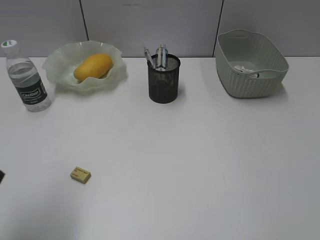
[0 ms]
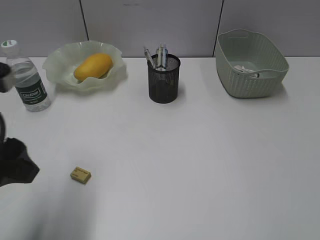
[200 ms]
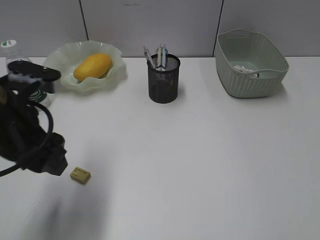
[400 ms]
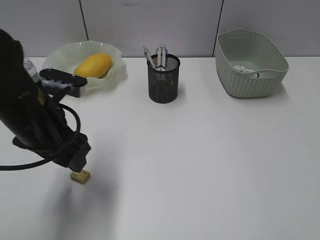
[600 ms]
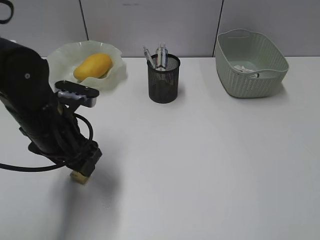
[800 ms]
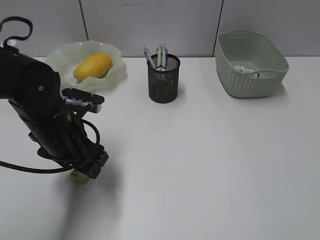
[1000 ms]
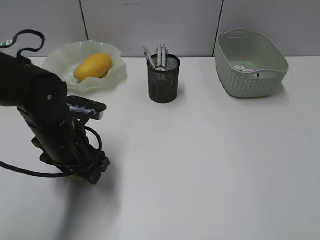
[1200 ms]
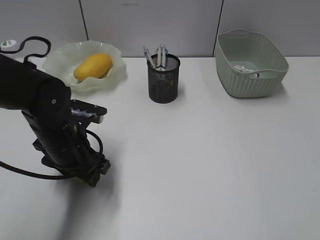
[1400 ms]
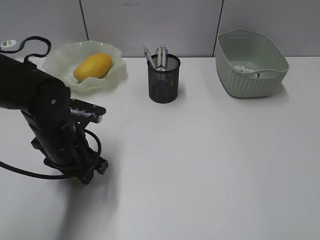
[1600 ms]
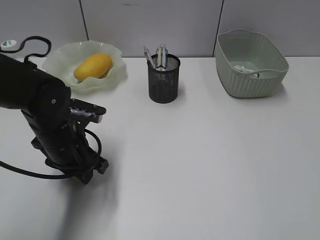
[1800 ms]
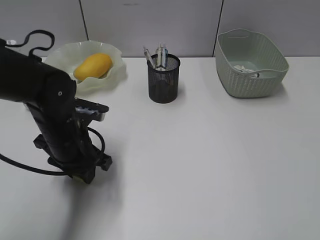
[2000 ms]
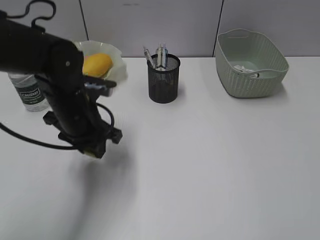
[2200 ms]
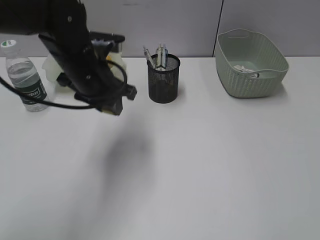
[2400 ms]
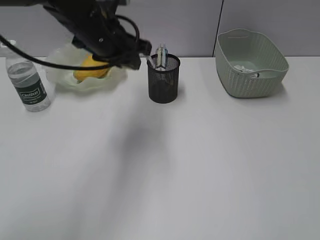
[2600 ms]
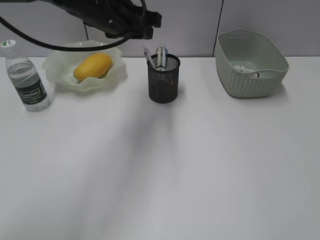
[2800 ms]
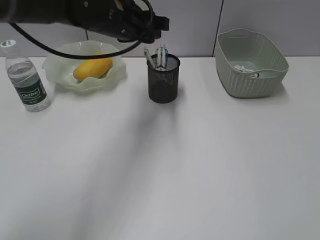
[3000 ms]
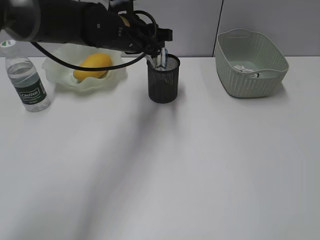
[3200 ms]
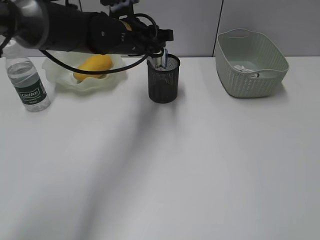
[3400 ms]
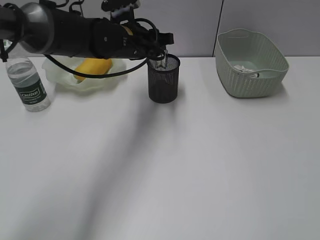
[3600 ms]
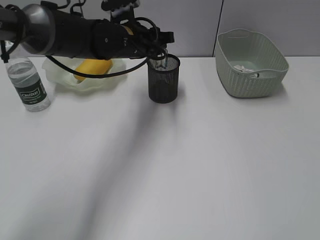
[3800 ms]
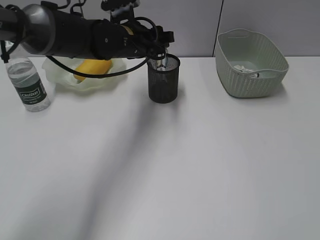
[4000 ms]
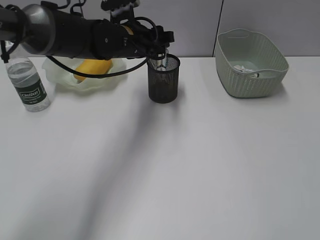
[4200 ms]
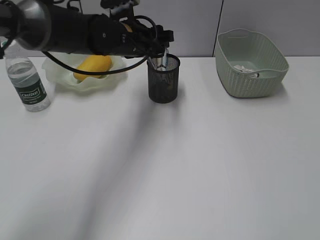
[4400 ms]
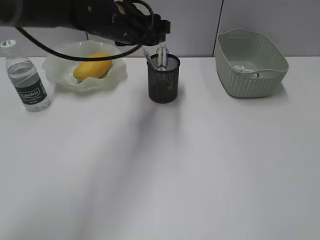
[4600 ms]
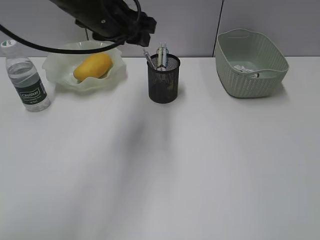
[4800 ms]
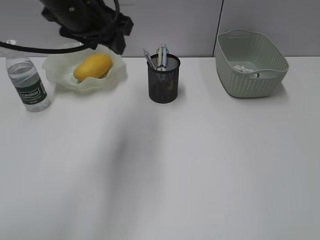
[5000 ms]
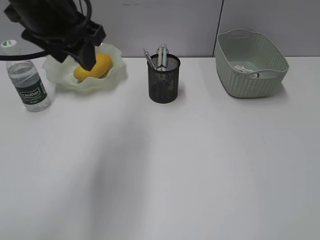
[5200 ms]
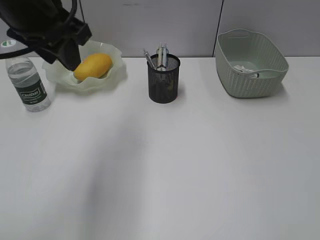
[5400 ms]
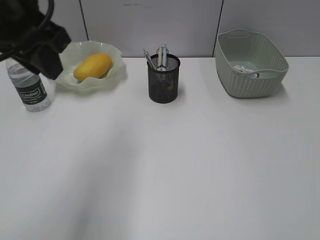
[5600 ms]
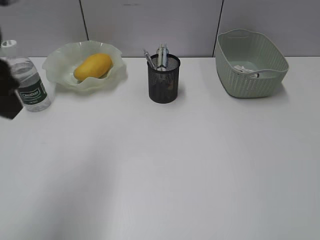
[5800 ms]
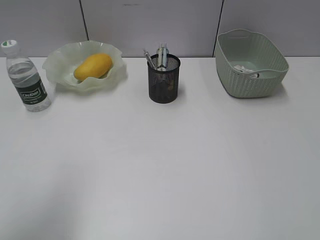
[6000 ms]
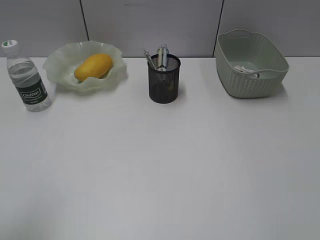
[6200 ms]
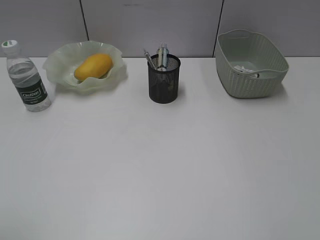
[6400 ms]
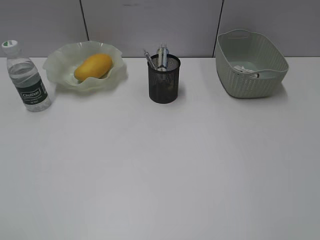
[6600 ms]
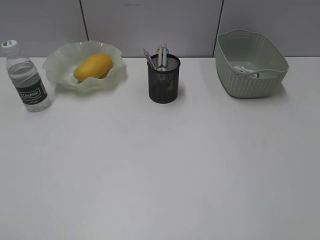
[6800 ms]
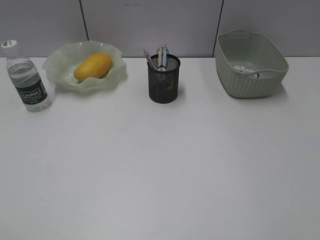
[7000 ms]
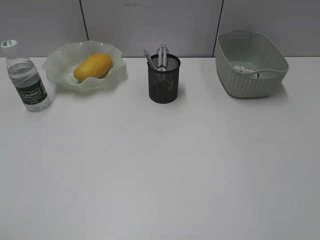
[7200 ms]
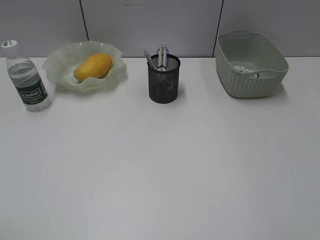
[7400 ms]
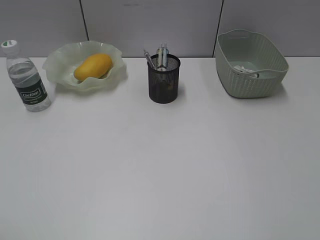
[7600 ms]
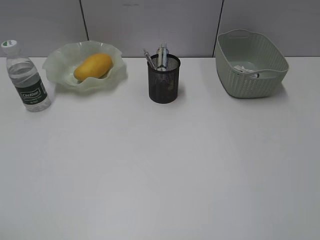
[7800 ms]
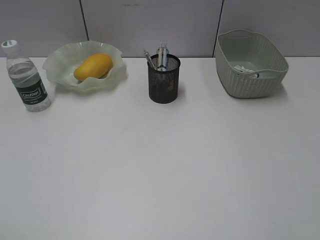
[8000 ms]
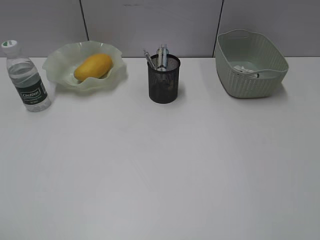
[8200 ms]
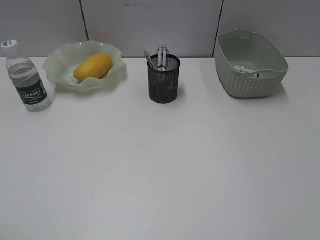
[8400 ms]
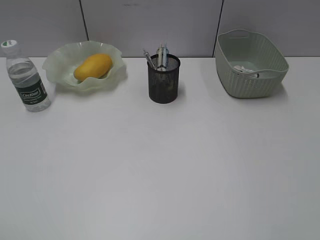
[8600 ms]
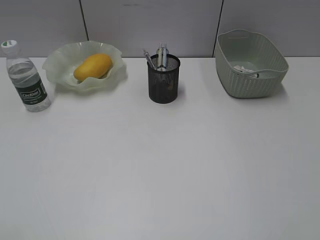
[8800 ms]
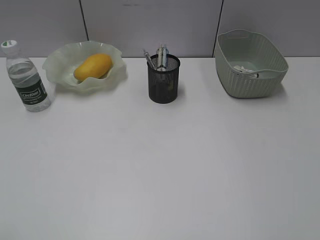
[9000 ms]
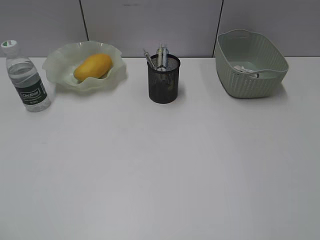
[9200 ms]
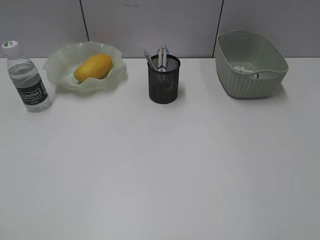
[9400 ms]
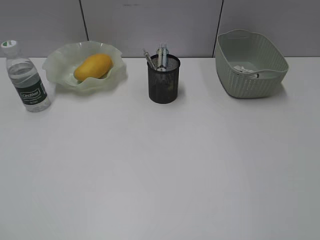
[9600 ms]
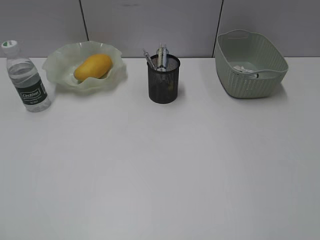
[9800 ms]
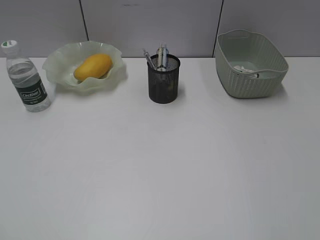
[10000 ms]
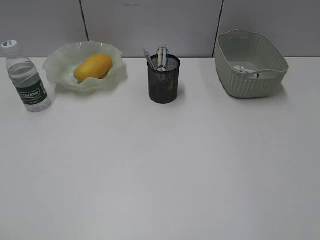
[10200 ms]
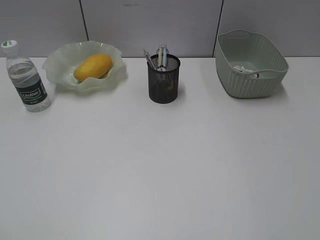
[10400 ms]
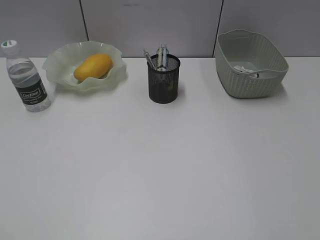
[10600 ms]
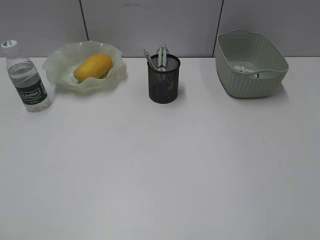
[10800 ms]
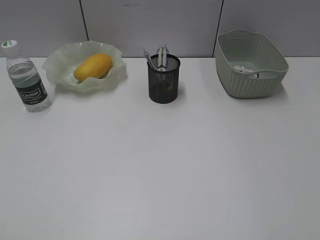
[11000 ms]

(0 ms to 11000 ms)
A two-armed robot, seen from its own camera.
Step, 1800 ms - 4000 ms: Place the eraser in pen holder with left gripper.
0 ms - 1600 ms: The left gripper is displaced downward, forward and to the right by about 25 cm.
1600 ms - 3200 ms: The left gripper heads forward, upward and to the right, covering approximately 20 cm.
3200 ms - 4800 ms: The left gripper is displaced upward by roughly 5 cm.
4800 ms - 6200 ms: The left gripper is displaced backward and to the left by about 35 cm.
9400 ms - 11000 ms: The two grippers keep their place.

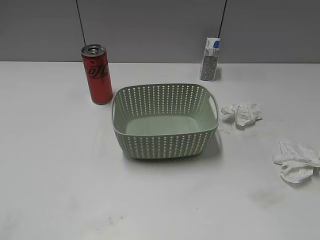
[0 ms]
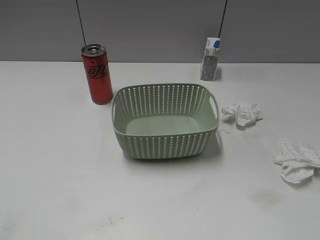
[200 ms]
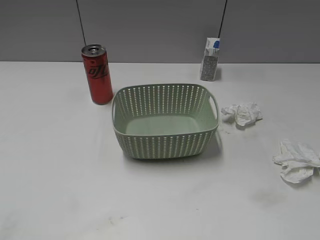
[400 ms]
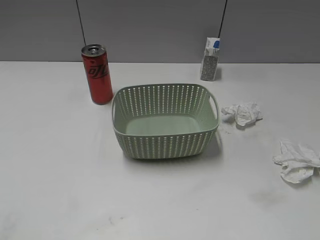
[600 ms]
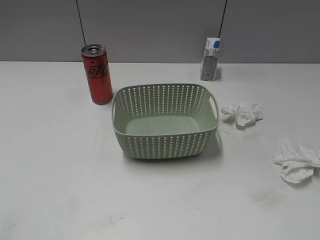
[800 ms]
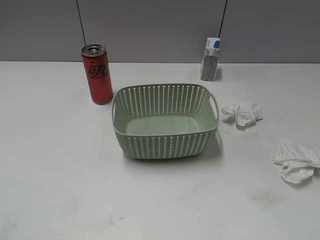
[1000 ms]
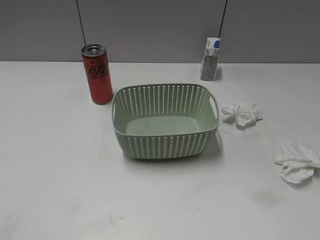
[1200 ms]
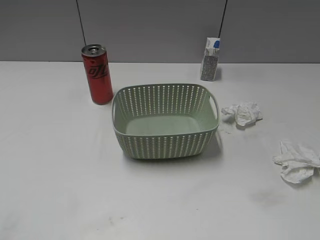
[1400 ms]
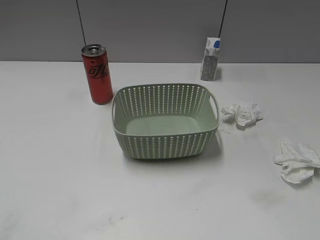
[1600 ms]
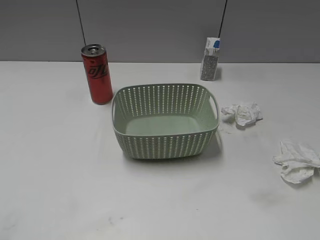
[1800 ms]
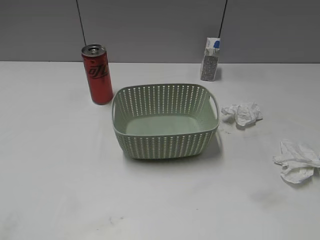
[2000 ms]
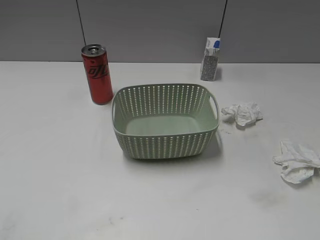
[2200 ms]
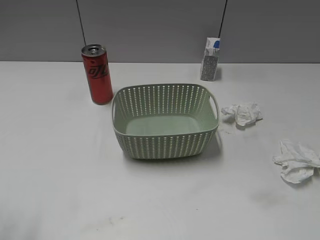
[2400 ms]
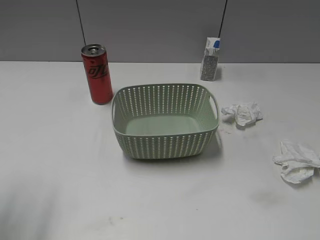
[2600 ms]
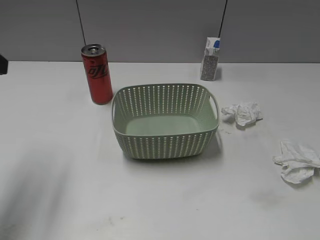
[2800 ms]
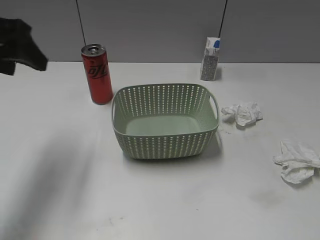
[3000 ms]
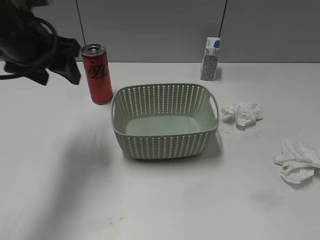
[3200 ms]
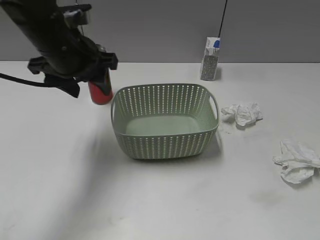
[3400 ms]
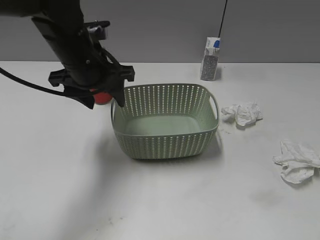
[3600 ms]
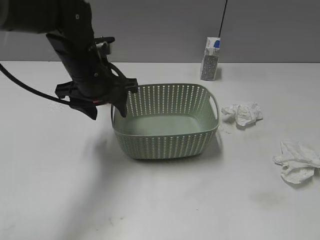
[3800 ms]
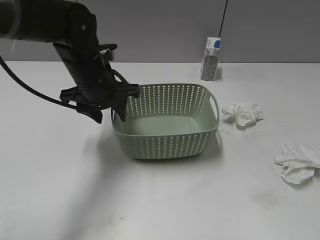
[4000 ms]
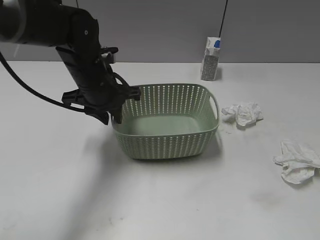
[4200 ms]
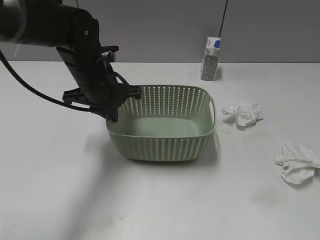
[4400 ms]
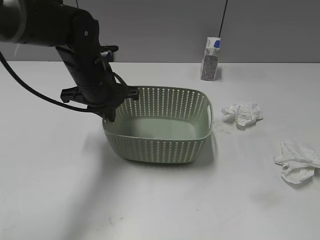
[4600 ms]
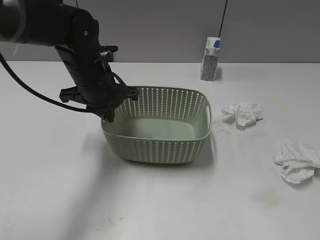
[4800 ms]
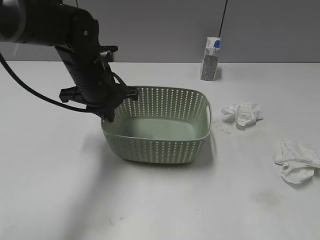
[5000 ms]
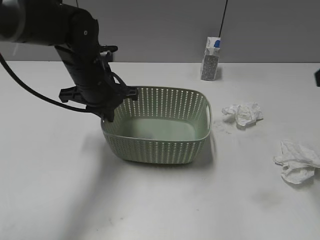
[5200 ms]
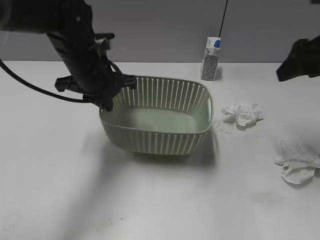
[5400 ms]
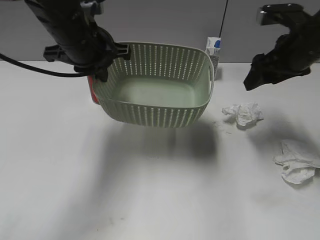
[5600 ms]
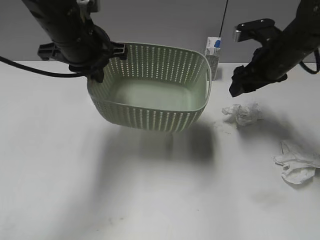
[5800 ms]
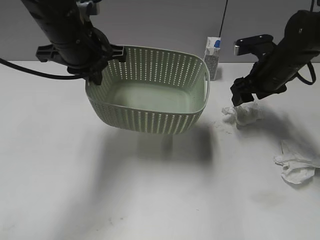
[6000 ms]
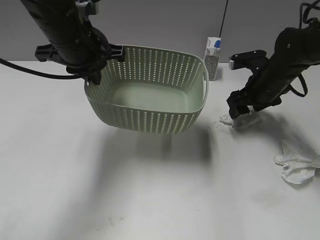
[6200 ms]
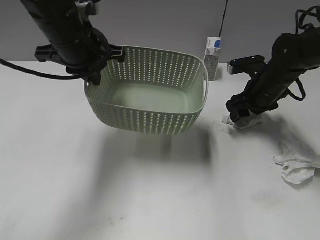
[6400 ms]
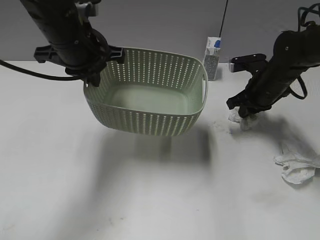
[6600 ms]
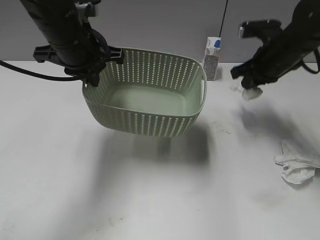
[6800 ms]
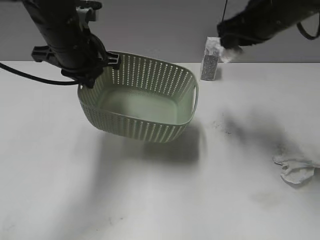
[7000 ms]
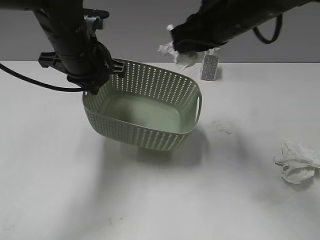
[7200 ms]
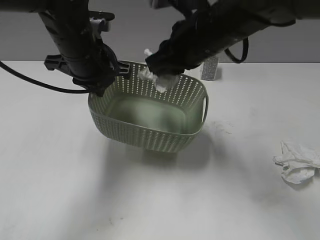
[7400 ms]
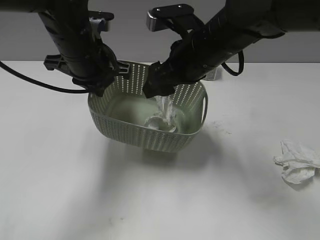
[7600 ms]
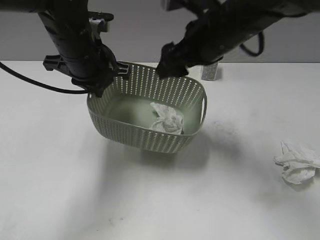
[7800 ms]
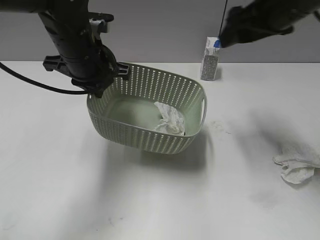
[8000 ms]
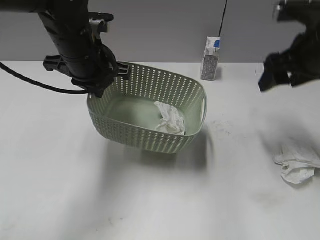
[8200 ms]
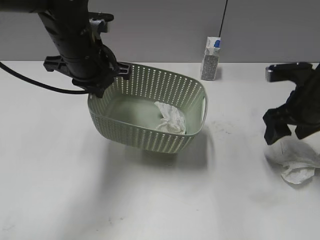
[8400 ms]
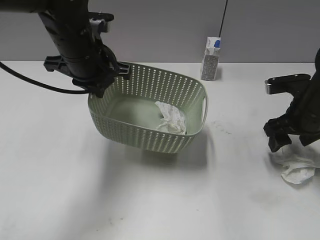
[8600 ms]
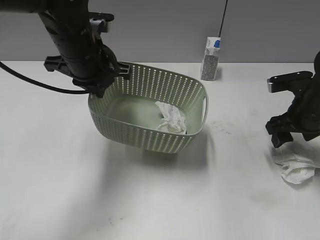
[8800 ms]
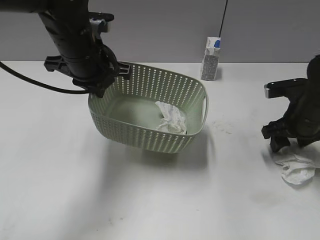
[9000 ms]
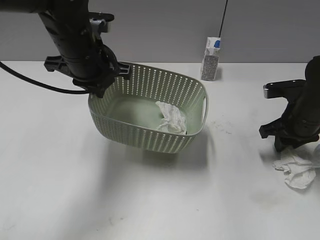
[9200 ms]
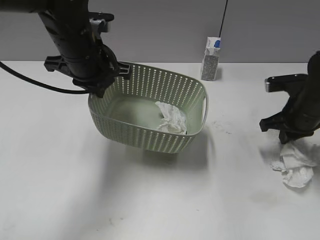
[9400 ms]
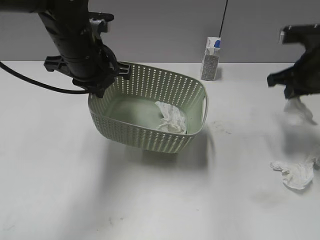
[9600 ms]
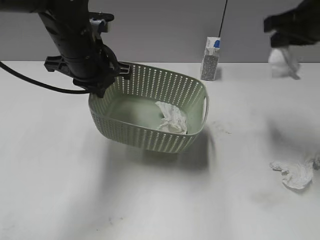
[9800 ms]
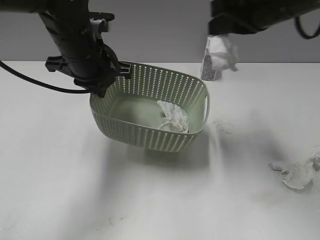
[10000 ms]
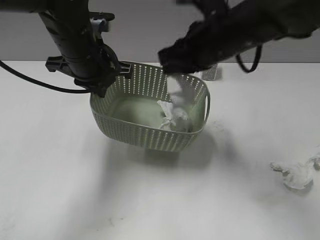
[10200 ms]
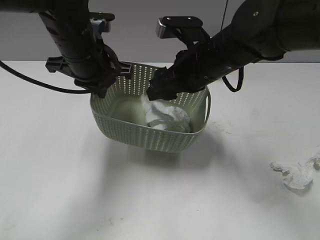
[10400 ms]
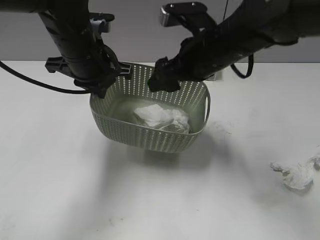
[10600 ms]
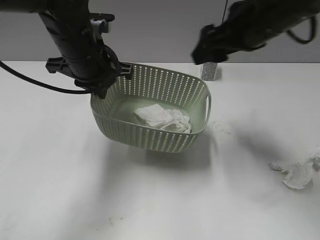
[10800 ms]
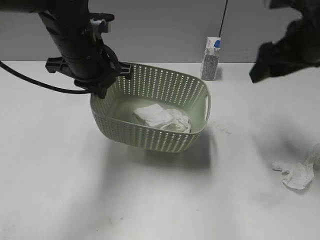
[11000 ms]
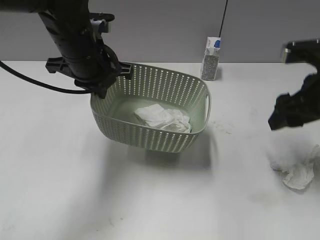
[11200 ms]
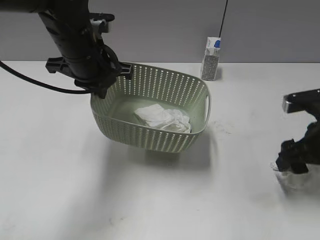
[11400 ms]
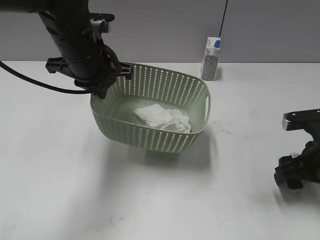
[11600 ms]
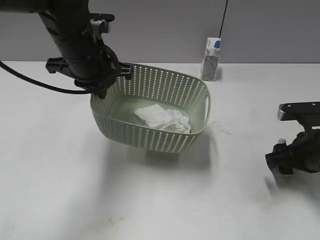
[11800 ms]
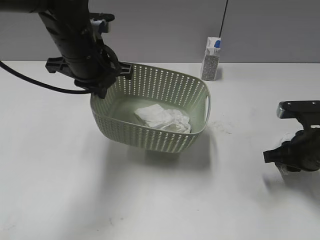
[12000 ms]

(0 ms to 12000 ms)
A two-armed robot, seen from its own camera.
Step, 0 ms - 4400 ms: Grasp the basket with left gripper.
Step, 4600 ms - 5800 ms: Lift the basket with left gripper.
Step, 6000 ms - 6600 ms: Grasp the waste paper with right gripper.
Step, 6800 ms - 7800 ms: Place the waste paper in the basket with right gripper.
Step, 8000 ms - 9400 ms: Grasp the waste paper with right gripper.
Step, 9600 ms - 10600 ms: Place the waste paper in the basket with right gripper.
Step, 10800 ms - 12000 ms: Grasp the waste paper with right gripper.
1600 ms - 3000 ms: The left gripper heads forward, covering about 30 cm.
3000 ms - 4400 ms: The left gripper heads to the right, downward and forward, covering some 20 cm, and closes up.
4400 ms - 6000 ms: The right gripper moves forward, some 40 cm. Meanwhile the left gripper heads upward, covering about 10 cm.
6000 ms - 7600 ms: The right gripper swings up and down, about 20 cm each way, with 2 reversals, and closes, then reopens.
7600 ms - 9000 ms: The right gripper moves to the right and downward, approximately 25 cm.
9000 ms - 10400 ms: The right gripper is displaced to the left and upward by roughly 20 cm, and closes, then opens again.
10400 ms - 12000 ms: The right gripper goes approximately 20 cm to the right and downward, and closes up.
